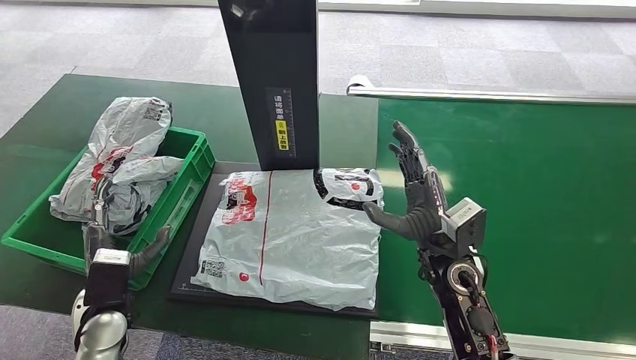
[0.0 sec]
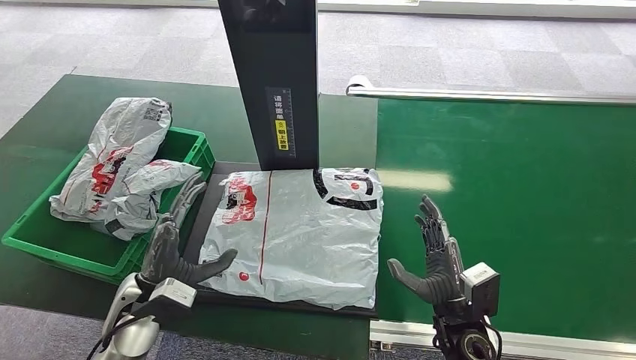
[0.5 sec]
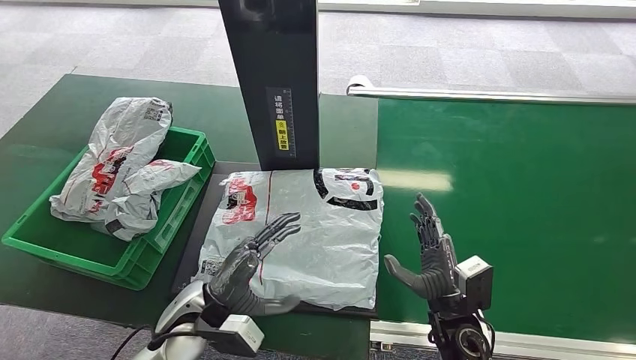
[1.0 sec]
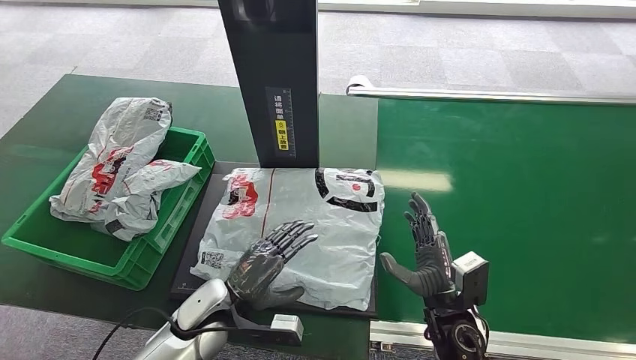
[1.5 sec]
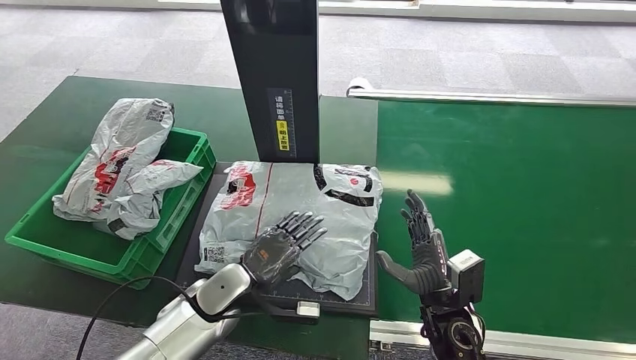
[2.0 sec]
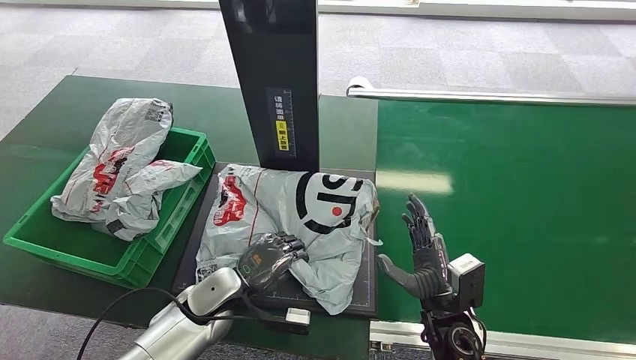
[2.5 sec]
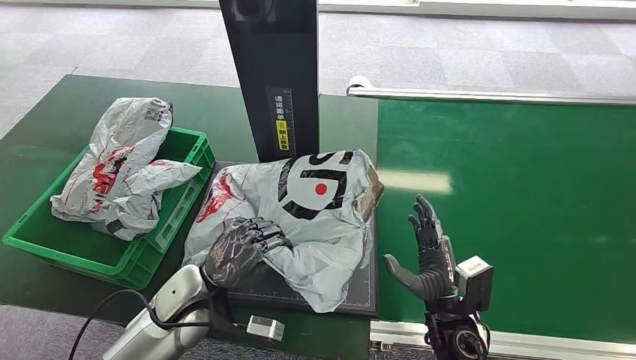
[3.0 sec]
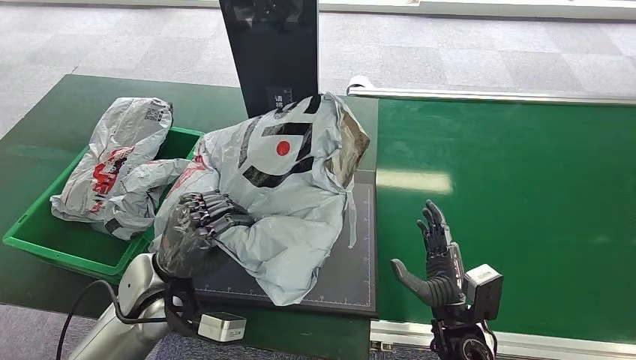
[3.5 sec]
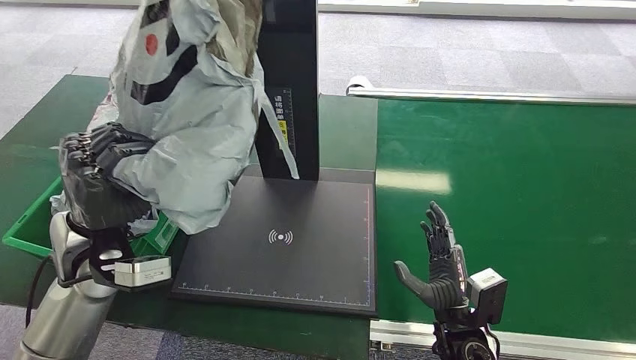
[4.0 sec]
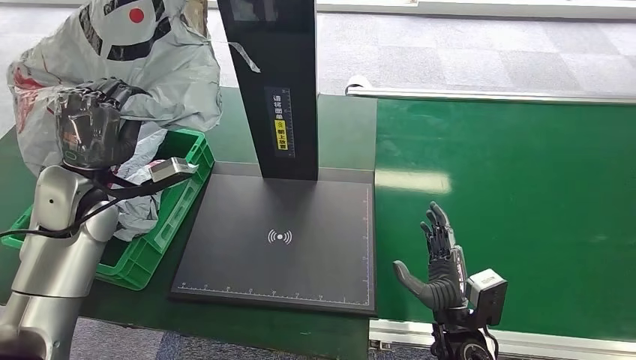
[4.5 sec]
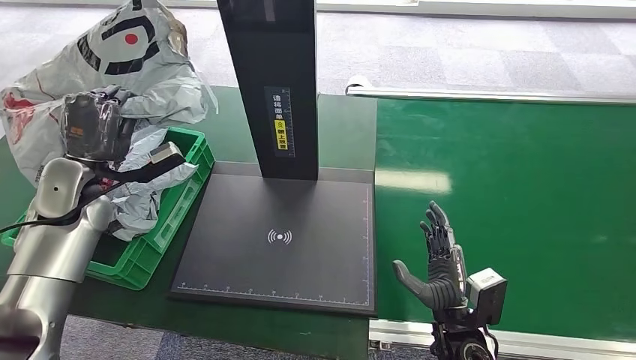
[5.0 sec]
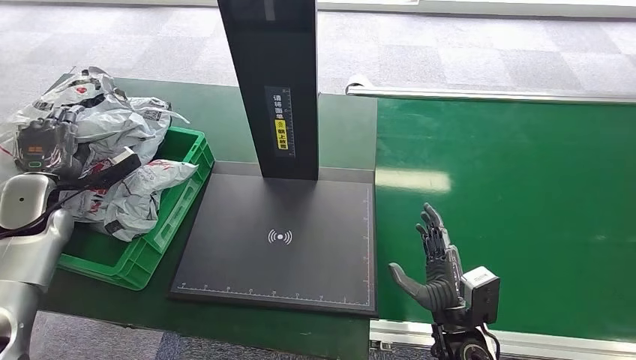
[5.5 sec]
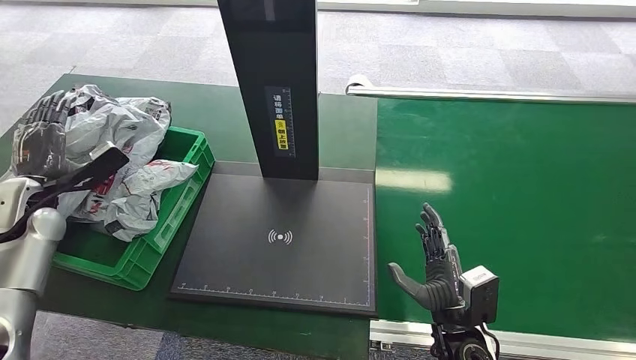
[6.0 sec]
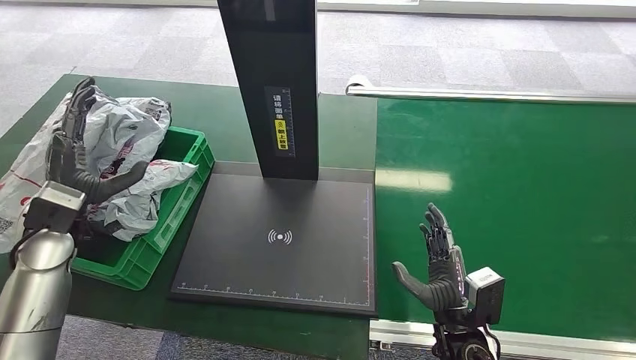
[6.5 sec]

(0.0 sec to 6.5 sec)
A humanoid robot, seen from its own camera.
Step, 0.0 sec - 3.0 sec: Pick up the package from the inbound machine.
Step, 3.5 sec - 6.5 sec: Place the package into the parcel locker.
